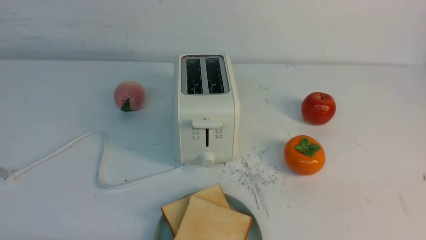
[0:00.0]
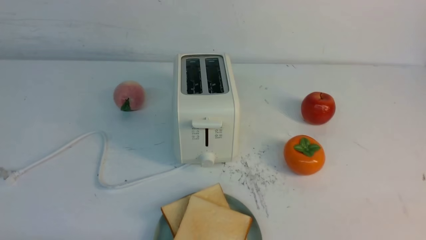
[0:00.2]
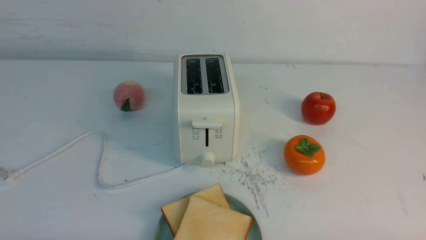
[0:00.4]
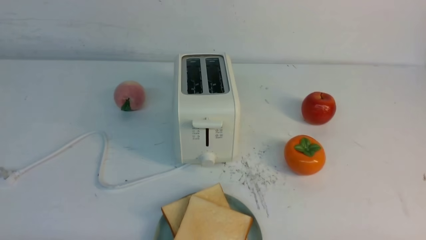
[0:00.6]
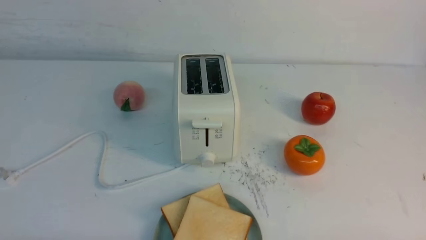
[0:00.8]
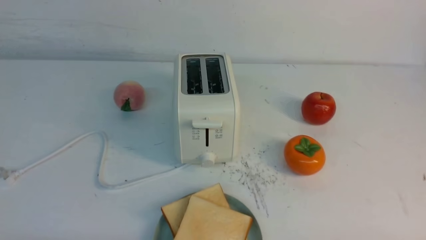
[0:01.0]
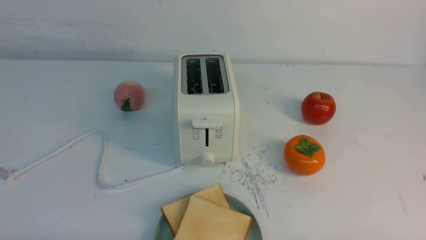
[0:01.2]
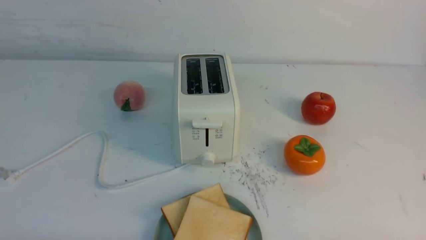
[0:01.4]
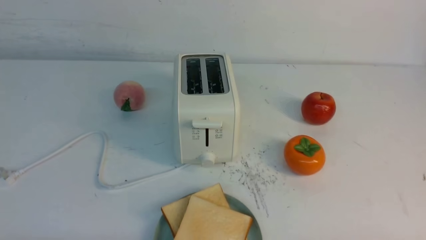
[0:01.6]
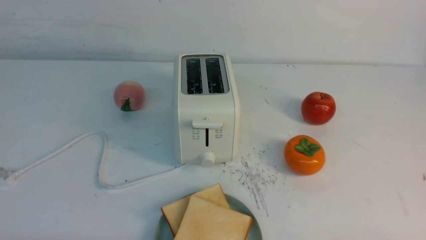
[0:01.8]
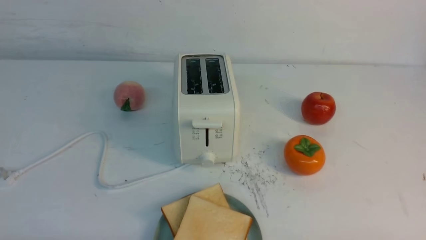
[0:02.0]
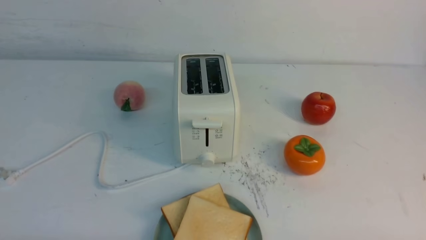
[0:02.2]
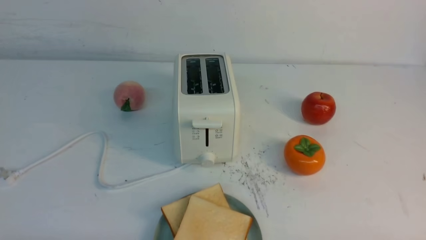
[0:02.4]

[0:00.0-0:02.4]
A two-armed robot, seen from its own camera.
Task of the whole recording: take toasted bread from bread machine on white table place on plate.
0:01.2 to 0:02.4: Both grippers stay about where they are.
